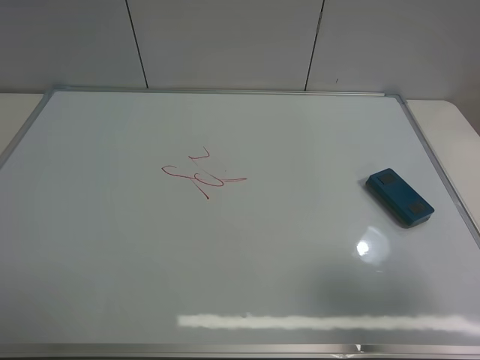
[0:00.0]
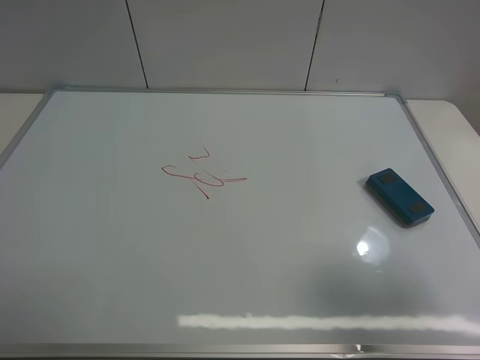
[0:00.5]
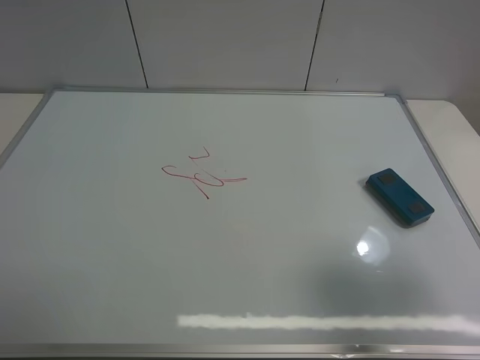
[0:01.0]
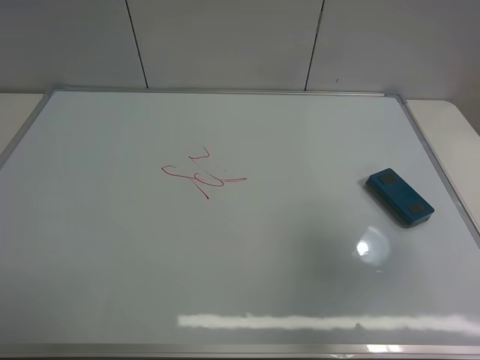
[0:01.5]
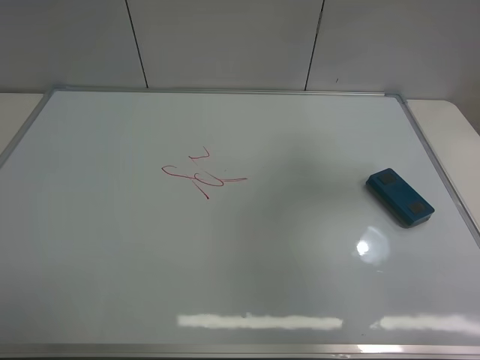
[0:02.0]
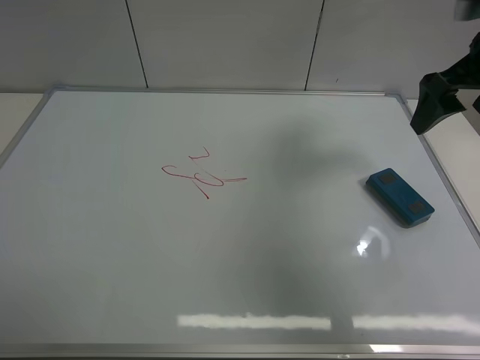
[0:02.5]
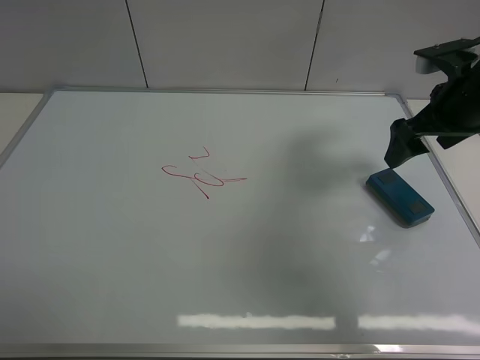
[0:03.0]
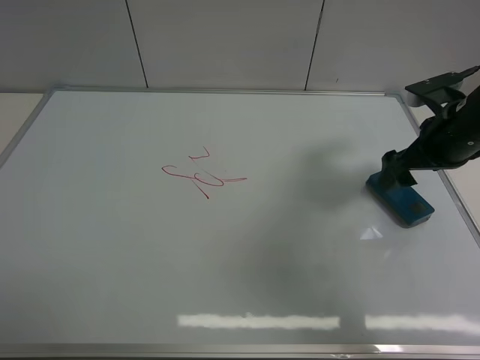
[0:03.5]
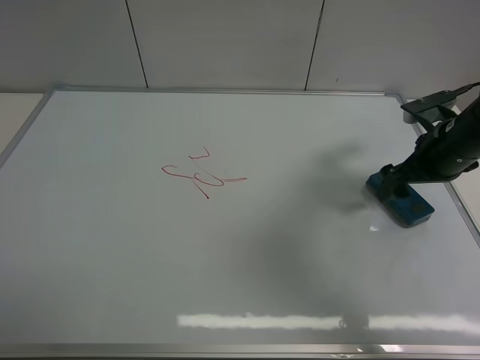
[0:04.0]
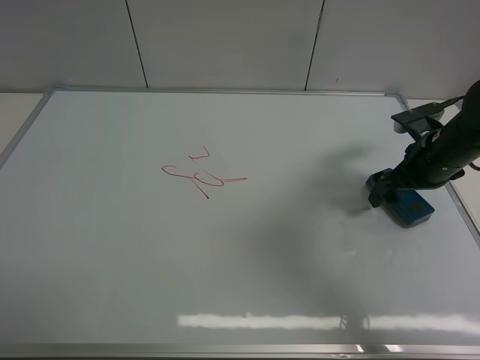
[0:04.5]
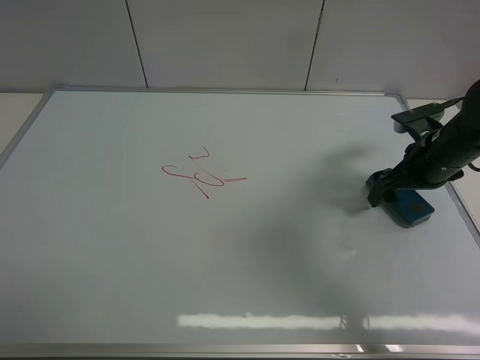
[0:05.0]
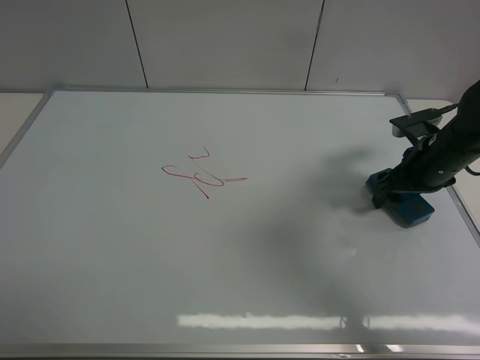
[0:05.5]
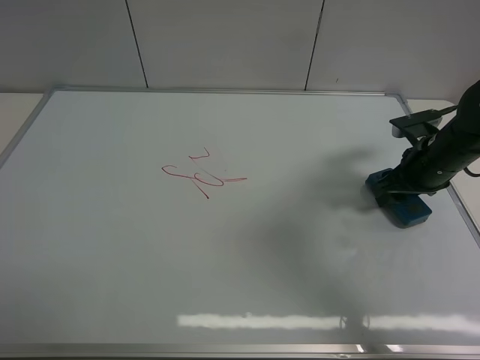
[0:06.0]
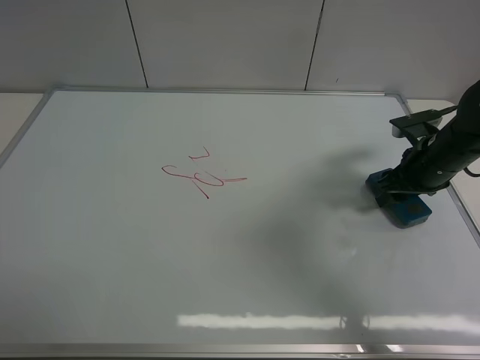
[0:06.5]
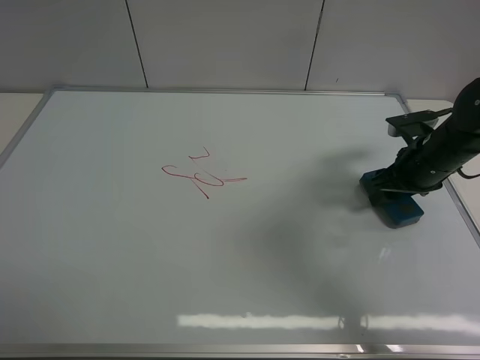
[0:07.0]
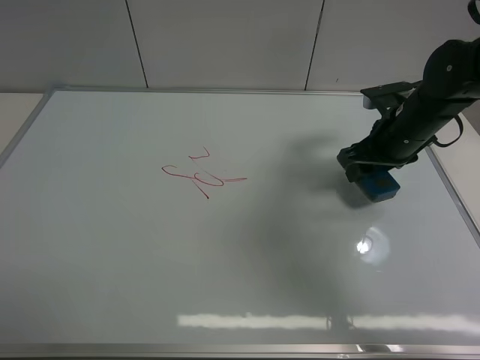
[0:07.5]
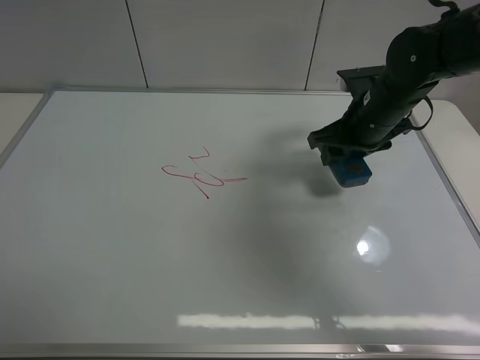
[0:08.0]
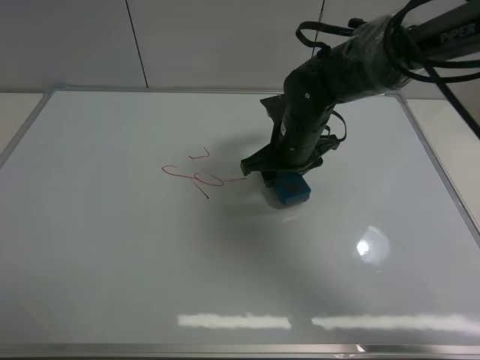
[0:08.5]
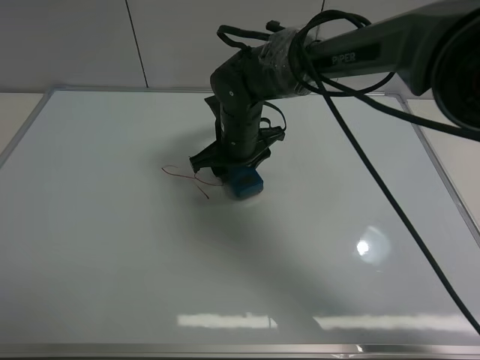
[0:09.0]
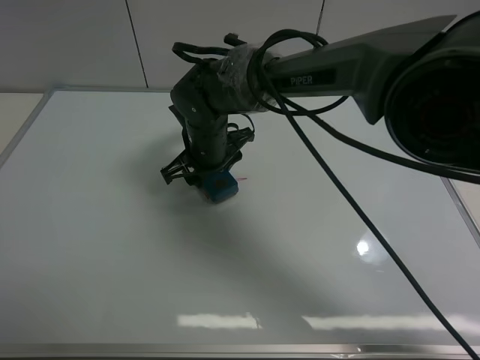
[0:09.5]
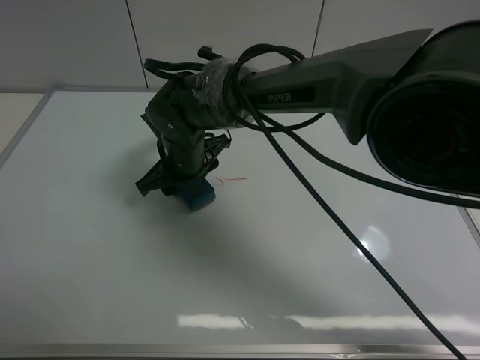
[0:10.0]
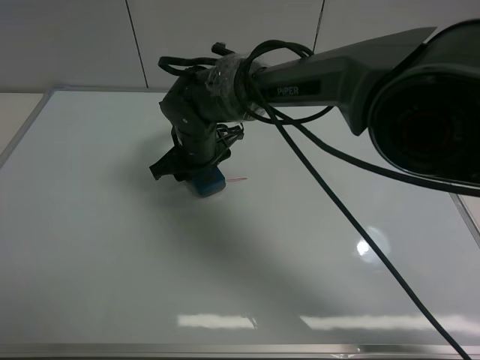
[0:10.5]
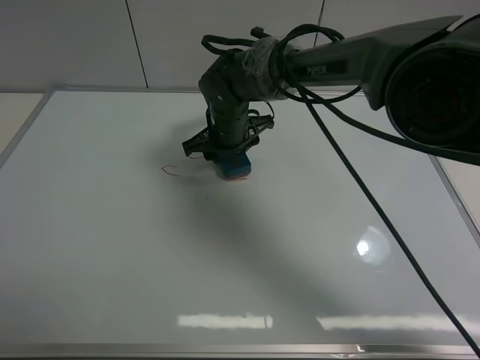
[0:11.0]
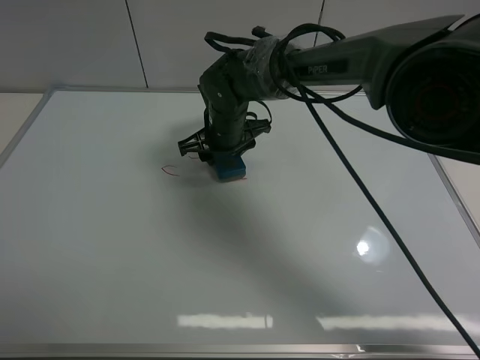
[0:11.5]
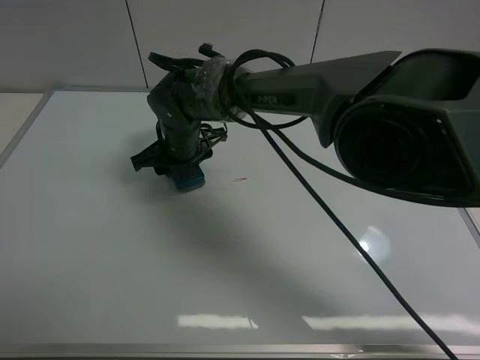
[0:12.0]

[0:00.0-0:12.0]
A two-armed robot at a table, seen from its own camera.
Task of the whole recording: use the right gripper to pick up the board eraser, wipe the notes on the whiteboard clean, and then put them back in place.
Step, 0:00.0 to 0:07.5: Pick up the board eraser with right gripper.
0:00.0 to 0:02.0: The right gripper travels forward and upward by approximately 20 cm.
0:02.0 to 0:04.0: The right gripper goes about 25 cm downward and forward.
0:04.0 to 0:06.0: The right gripper closes up.
0:06.0 to 0:08.0: The right gripper shifts about 10 cm to the left.
0:08.0 to 0:10.0: The right gripper moves to the left, about 25 cm.
0:10.0 to 0:12.0: The right gripper travels to the right and back again, some 5 cm each way.

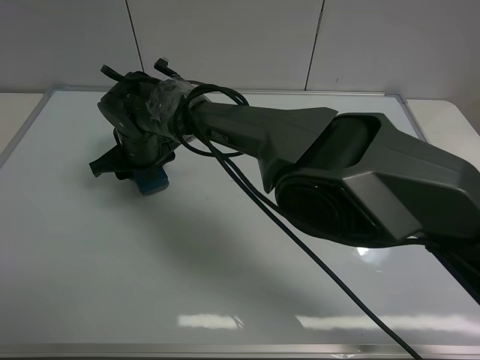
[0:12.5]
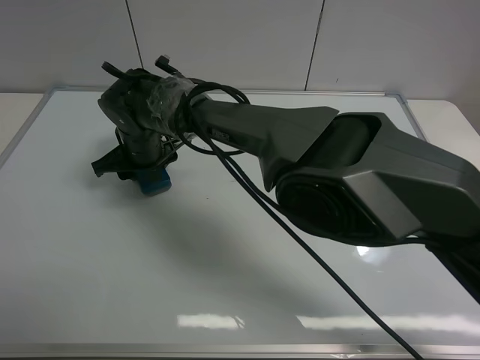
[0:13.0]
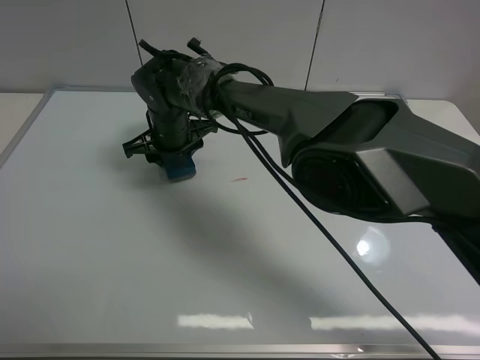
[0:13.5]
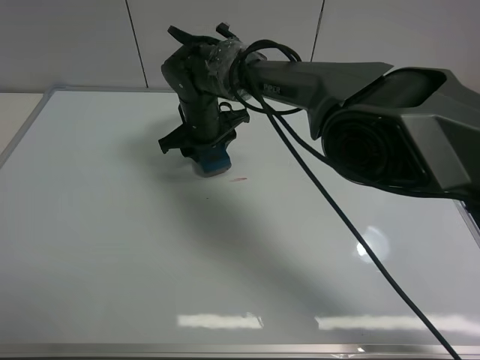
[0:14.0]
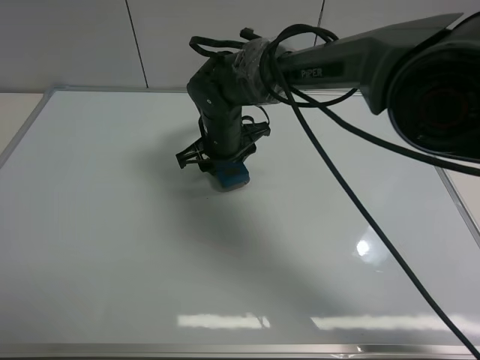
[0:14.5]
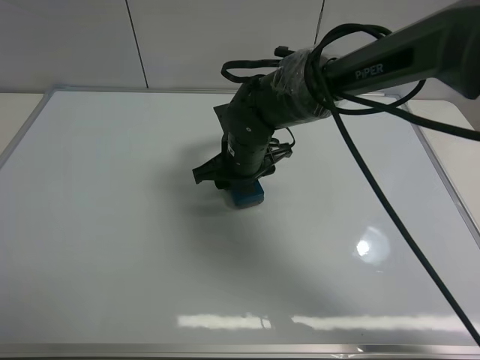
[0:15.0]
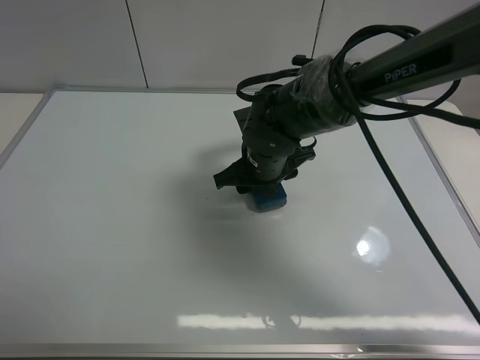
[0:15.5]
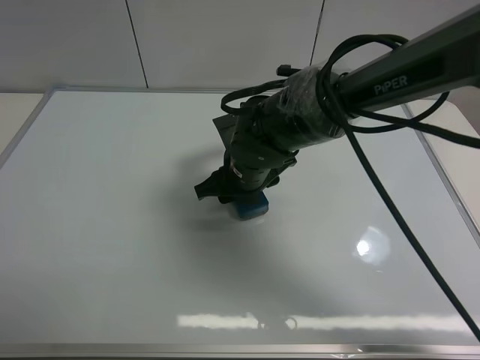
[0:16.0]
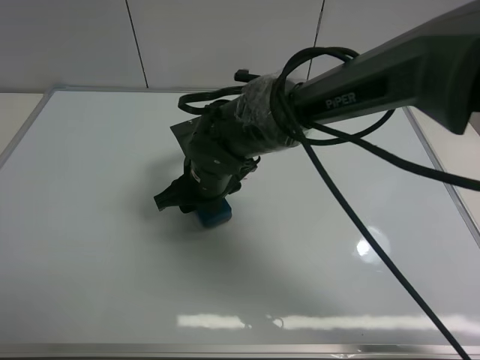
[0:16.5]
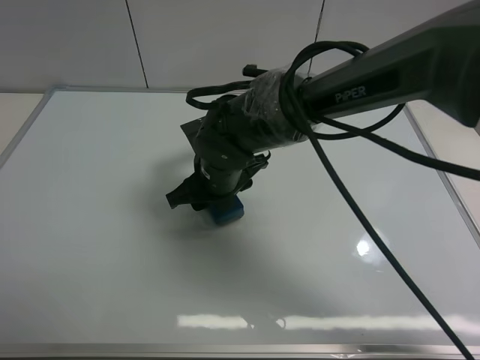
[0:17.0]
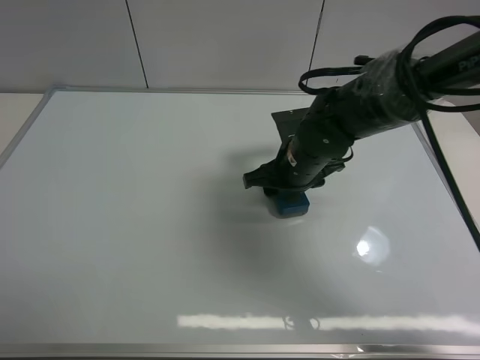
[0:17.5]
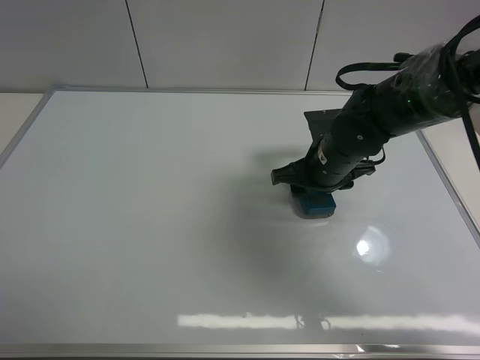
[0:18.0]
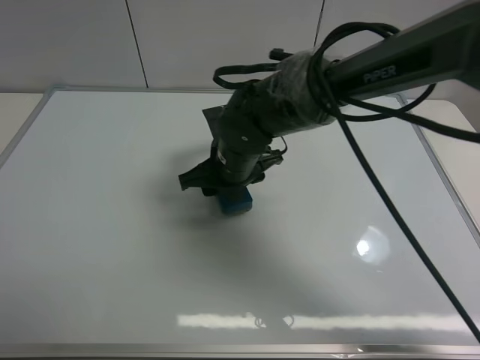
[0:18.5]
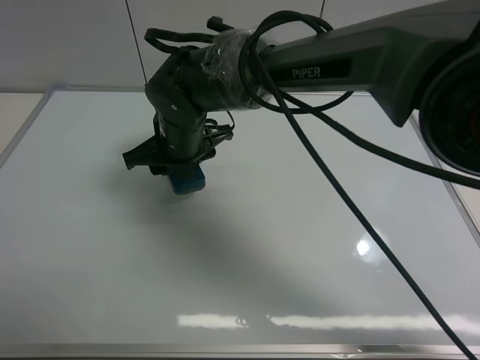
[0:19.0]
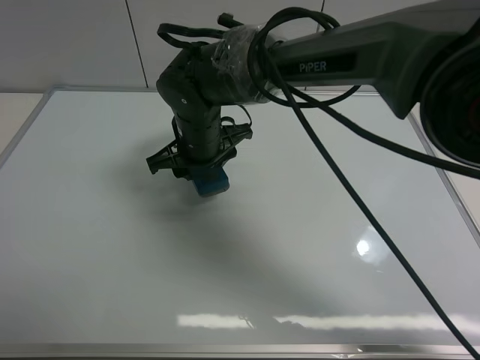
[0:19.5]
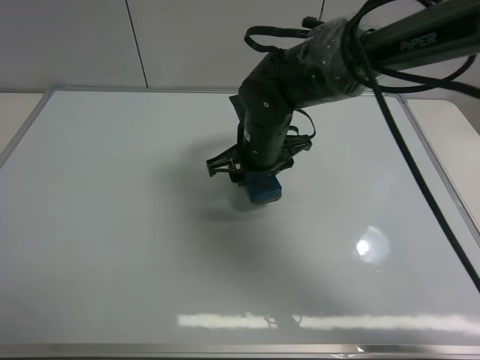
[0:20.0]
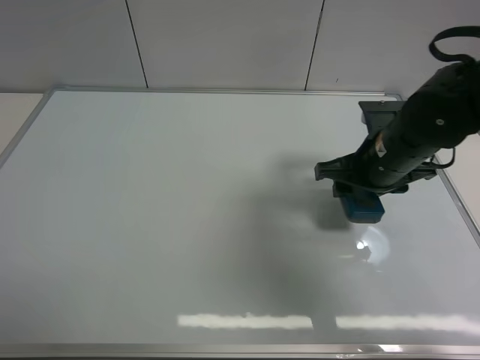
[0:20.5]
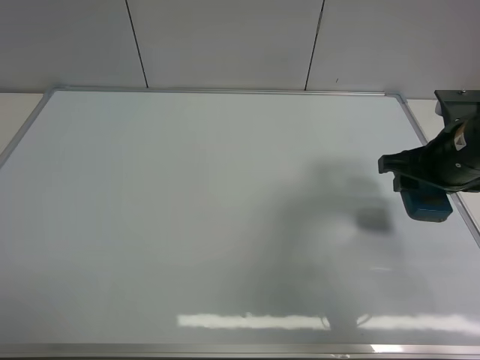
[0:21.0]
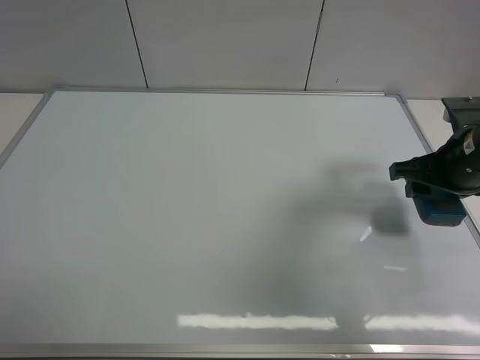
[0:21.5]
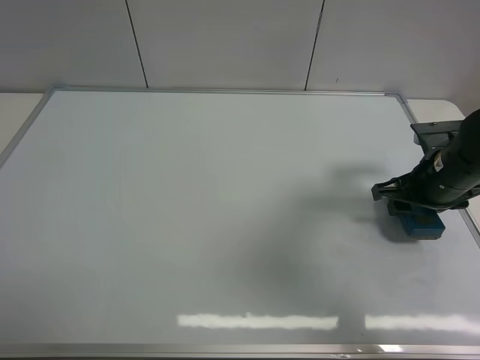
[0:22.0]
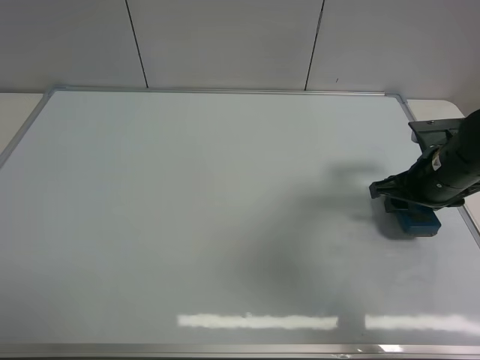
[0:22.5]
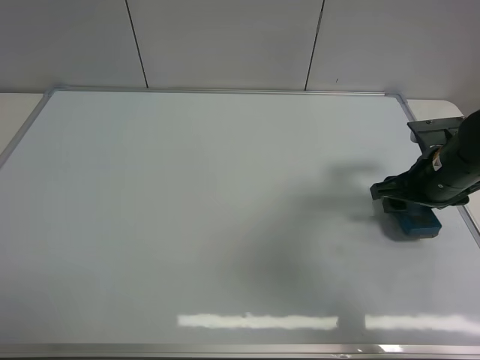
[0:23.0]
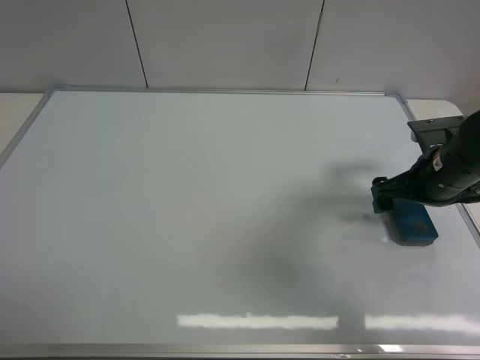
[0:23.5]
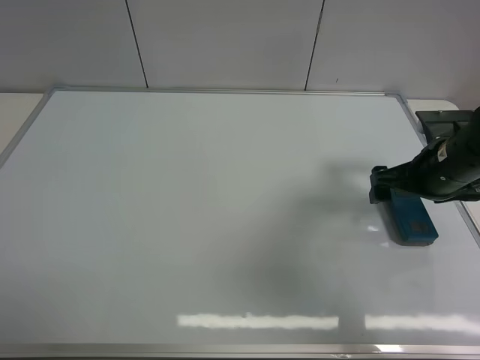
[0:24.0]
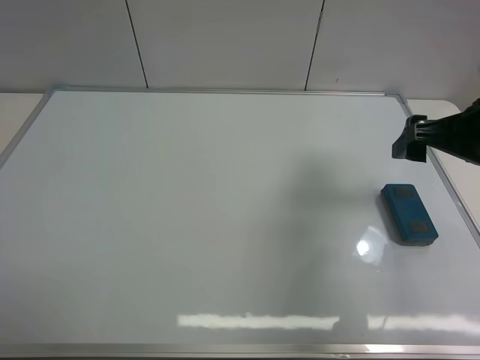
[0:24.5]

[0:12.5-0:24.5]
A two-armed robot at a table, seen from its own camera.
Task of the whole recording: use the right gripper to pick up the board eraser, wipe the notes on the whiteboard clean, and then put them back in place.
Step, 0:12.5 to 0:18.5: Wipe off the writing on the board with right gripper.
Step, 0:19.0 to 0:23.0: Move the board eraser to the right of the whiteboard with right gripper.
0:12.5 to 0:14.5: The right gripper moves to the right, approximately 15 cm.
0:14.5 to 0:16.5: The right gripper goes about 10 cm backward, and goes to the right and returns, approximately 5 cm each way.
0:16.5 to 0:18.5: The right gripper moves about 15 cm to the right and comes back.
0:18.5 to 0:20.5: The right gripper moves to the right, about 20 cm.
0:20.5 to 0:22.5: The right gripper heads to the right, covering about 5 cm.
0:22.5 to 0:24.5: The right gripper shifts some 10 cm upward, and opens up.

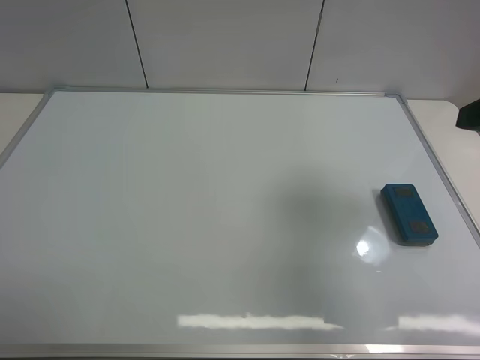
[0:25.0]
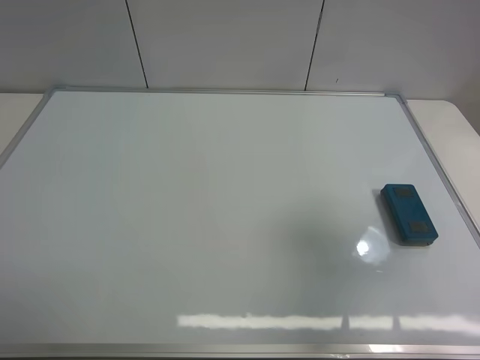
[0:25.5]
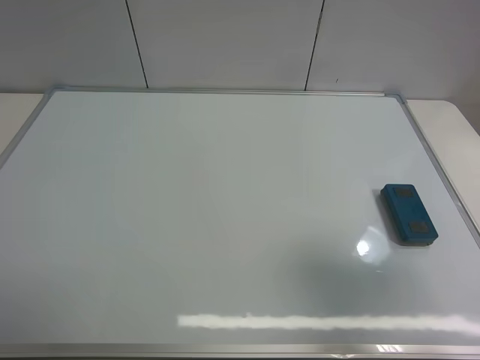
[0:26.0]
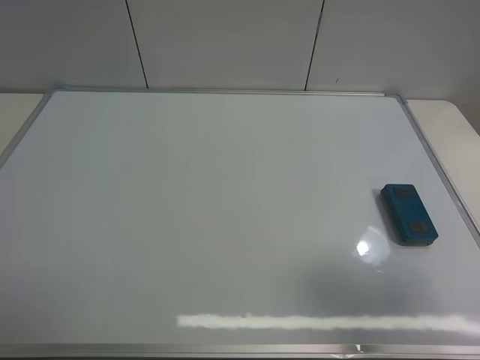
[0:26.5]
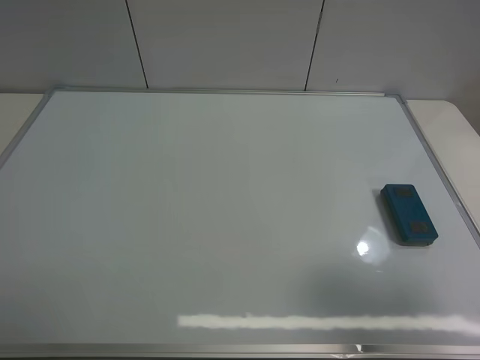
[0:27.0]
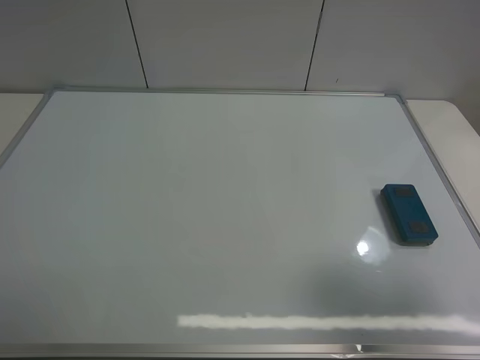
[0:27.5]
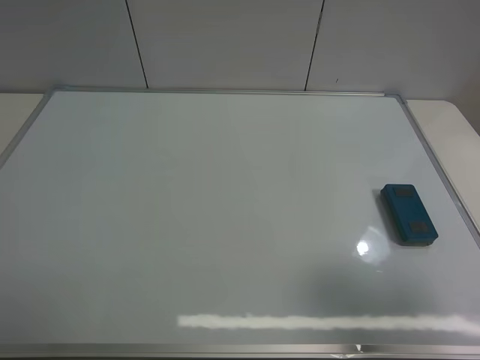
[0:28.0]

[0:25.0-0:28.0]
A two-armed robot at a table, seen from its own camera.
Task of the whole recording: use the right gripper to pick up the board eraser, wipe the notes on the whiteboard clean, and then put them back in place.
0:25.0 to 0:26.5: The right gripper moves backward, roughly 15 cm.
0:26.5 to 0:28.0: Both grippers stay about where they are.
